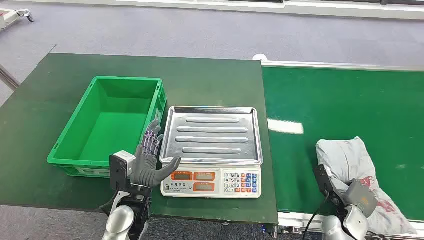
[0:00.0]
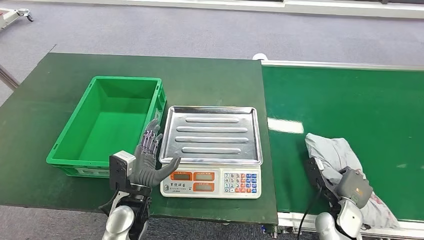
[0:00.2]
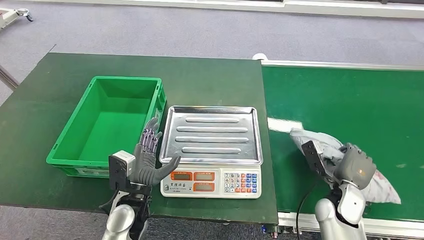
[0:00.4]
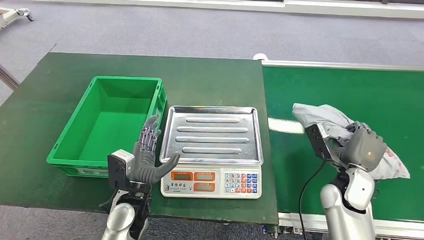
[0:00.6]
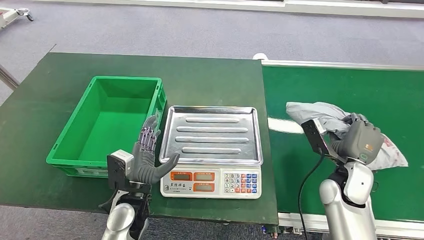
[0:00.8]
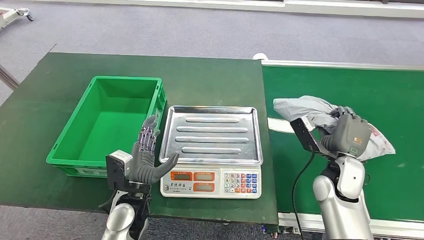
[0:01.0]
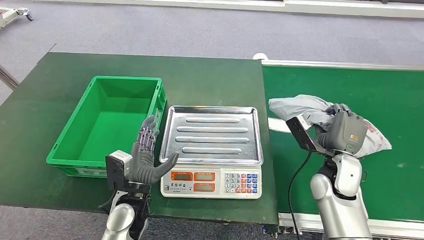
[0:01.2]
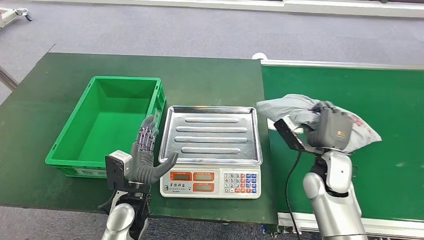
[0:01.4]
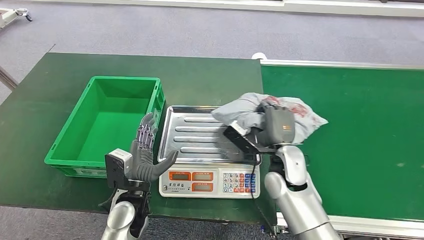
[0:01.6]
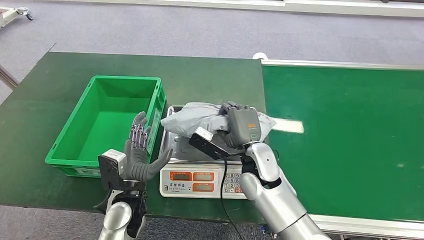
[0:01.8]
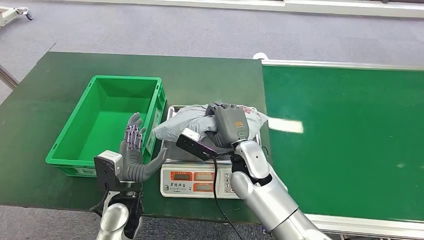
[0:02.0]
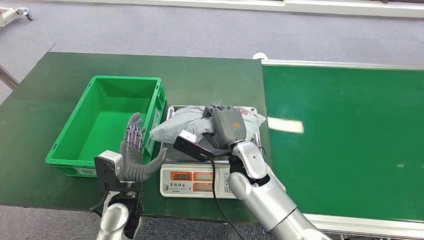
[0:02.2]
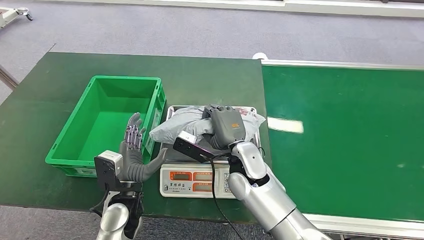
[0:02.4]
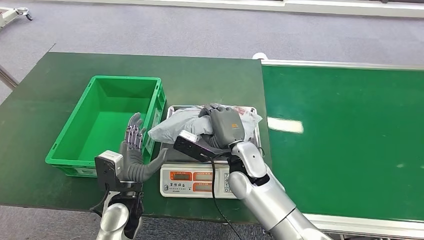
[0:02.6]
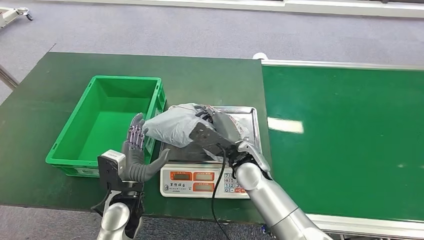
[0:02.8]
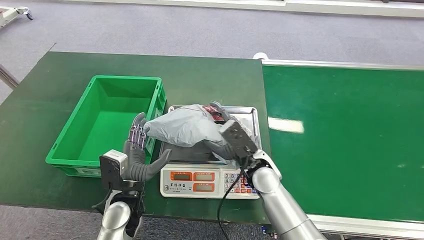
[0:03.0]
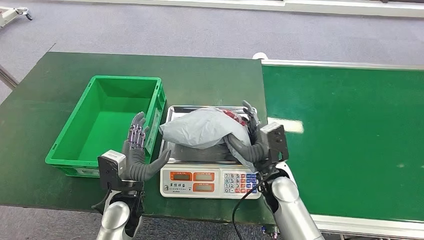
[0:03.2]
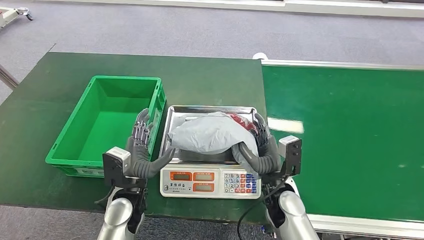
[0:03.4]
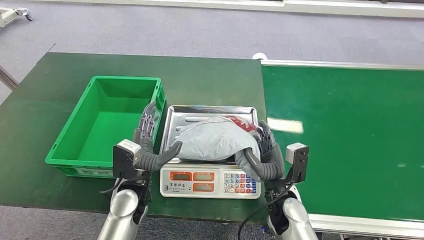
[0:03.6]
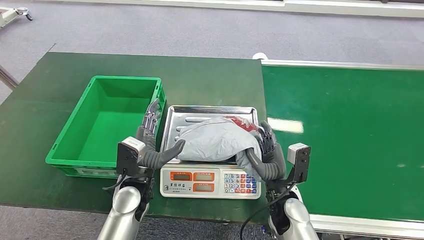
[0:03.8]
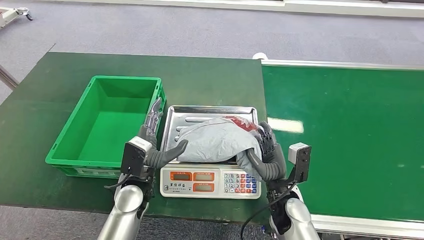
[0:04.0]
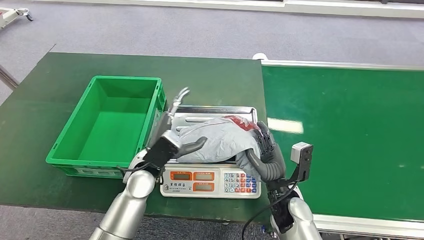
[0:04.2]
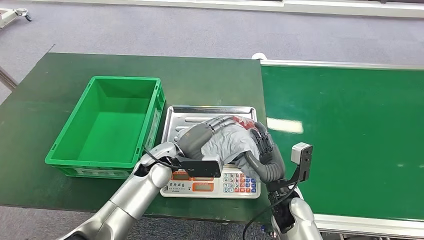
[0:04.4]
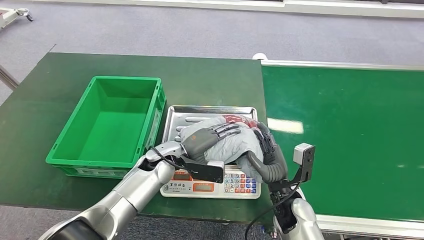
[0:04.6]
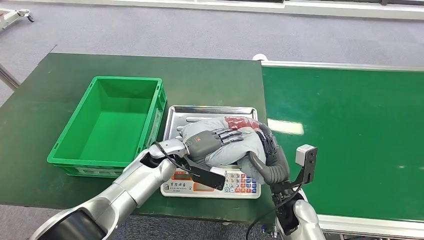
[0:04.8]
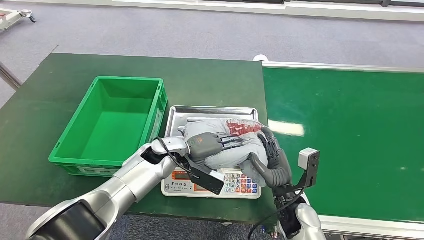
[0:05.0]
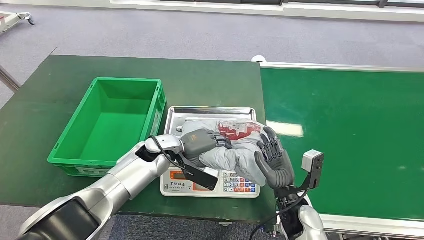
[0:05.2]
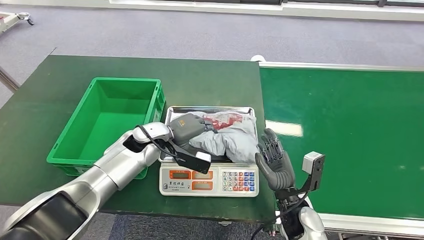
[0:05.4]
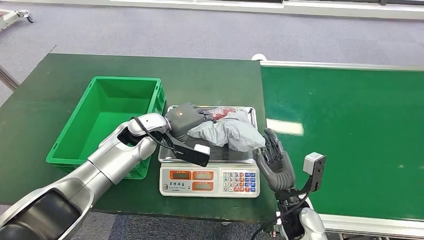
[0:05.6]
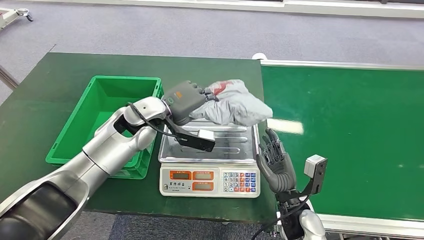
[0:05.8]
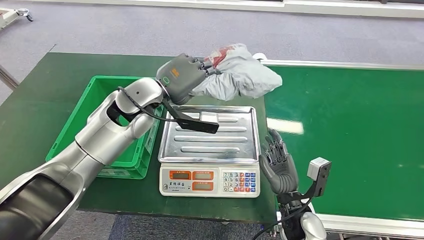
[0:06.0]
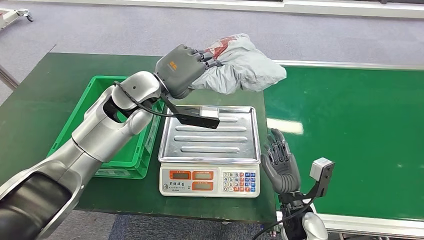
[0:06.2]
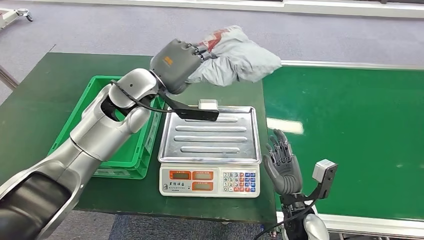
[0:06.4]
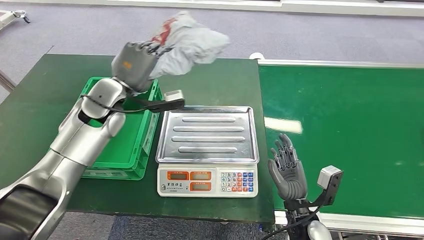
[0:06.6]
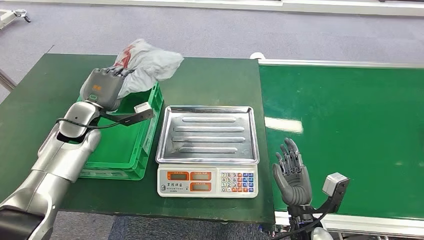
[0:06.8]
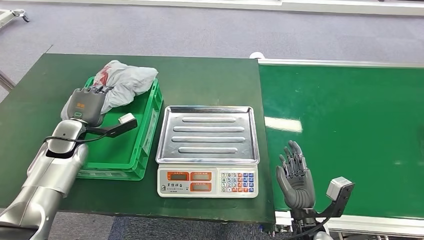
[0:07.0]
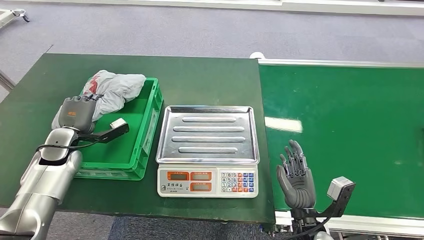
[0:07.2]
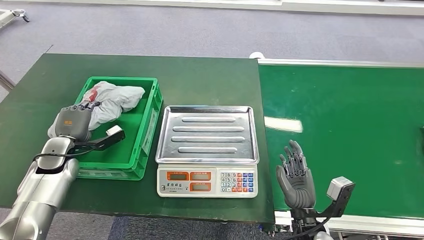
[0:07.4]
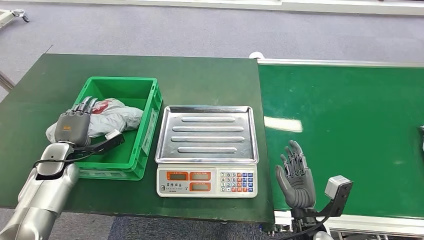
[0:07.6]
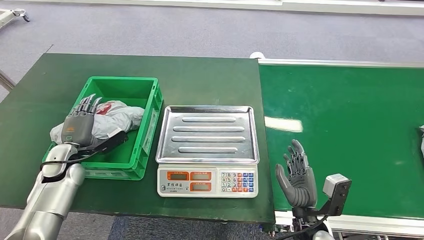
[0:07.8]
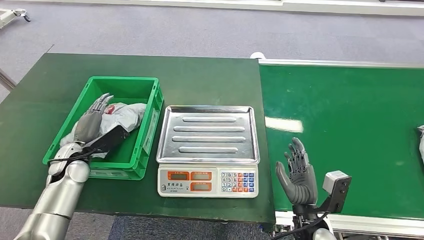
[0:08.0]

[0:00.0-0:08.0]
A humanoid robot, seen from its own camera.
Step, 0:00.0 to 0:01.6: Pick up the package from the conveyor belt.
Step, 0:02.0 to 0:03.2: Place the package onto the inbound machine.
Step, 0:03.4 to 0:06.4: Pick up the package from the inbound machine.
Step, 0:06.6 to 0:08.0: Place the package into the parcel locker.
0:01.6 to 0:03.2: The right hand reaches roughly 10 cm to the left, then returns.

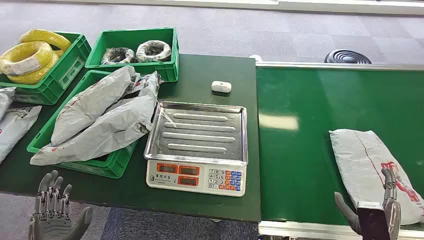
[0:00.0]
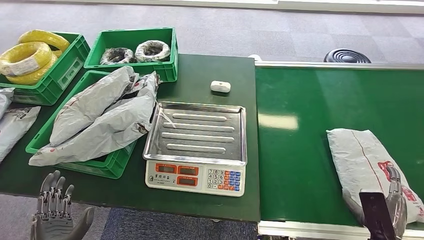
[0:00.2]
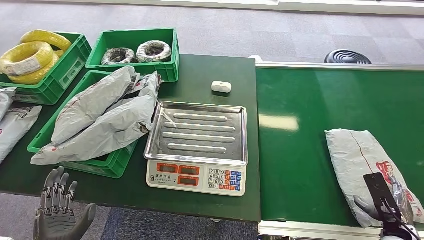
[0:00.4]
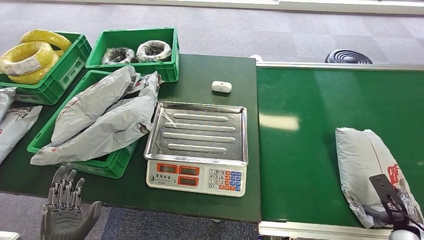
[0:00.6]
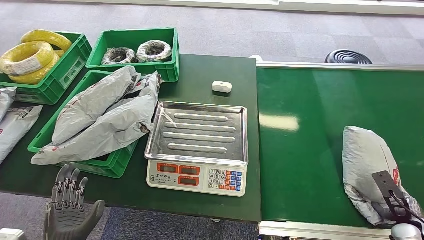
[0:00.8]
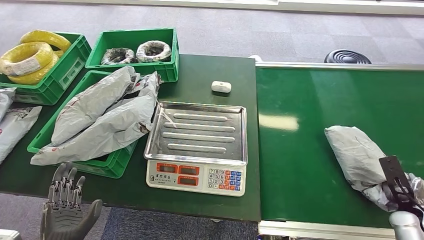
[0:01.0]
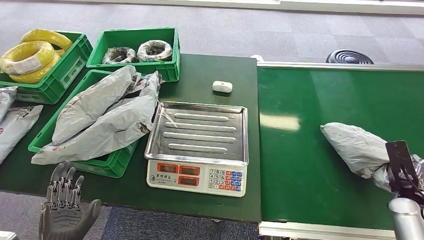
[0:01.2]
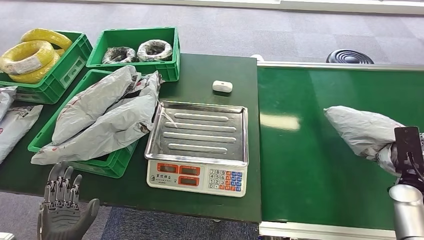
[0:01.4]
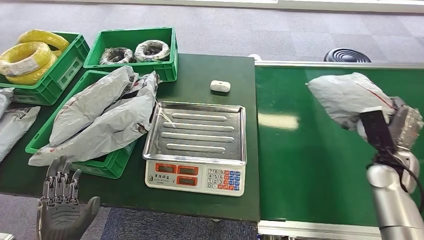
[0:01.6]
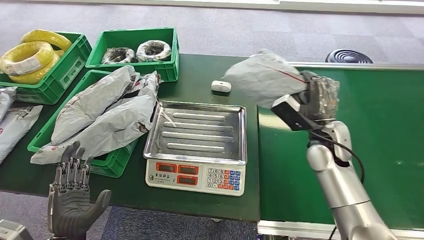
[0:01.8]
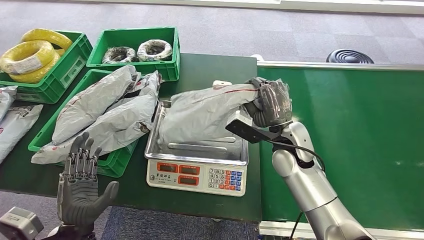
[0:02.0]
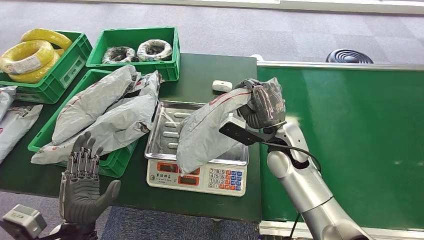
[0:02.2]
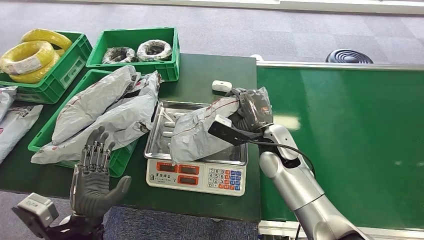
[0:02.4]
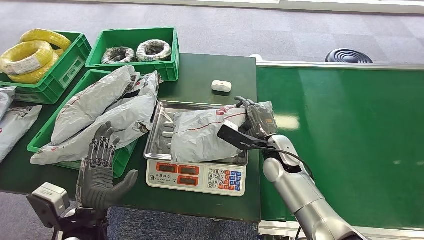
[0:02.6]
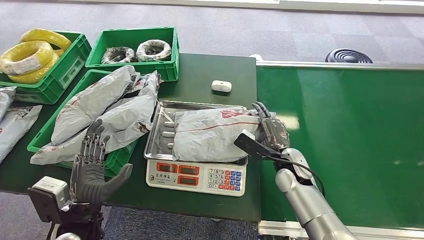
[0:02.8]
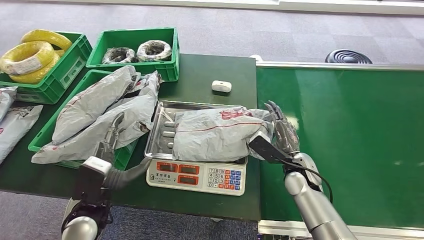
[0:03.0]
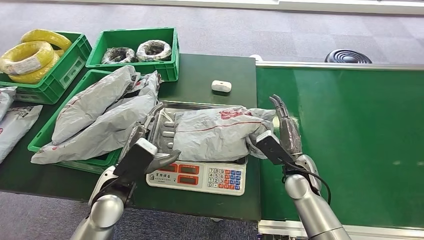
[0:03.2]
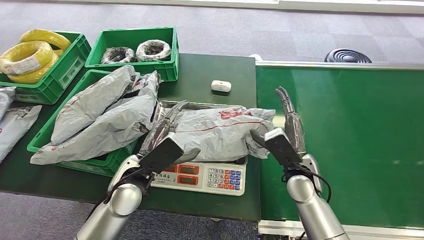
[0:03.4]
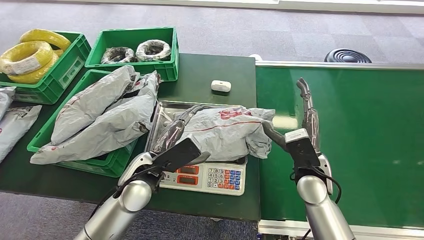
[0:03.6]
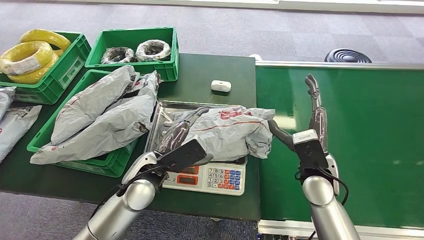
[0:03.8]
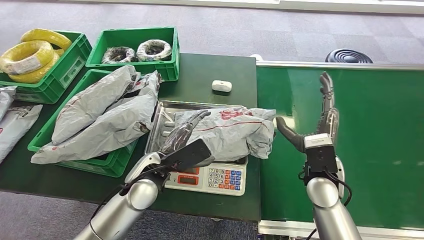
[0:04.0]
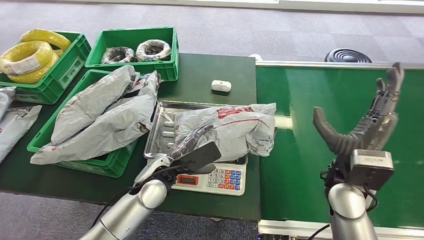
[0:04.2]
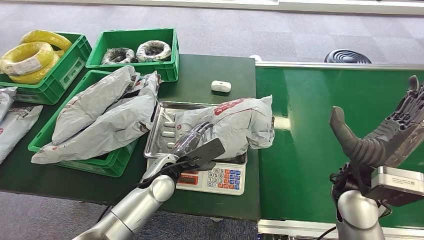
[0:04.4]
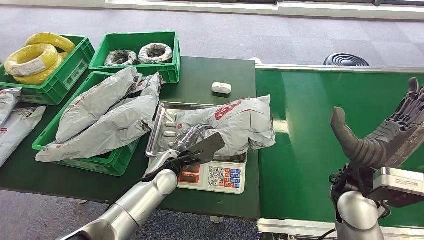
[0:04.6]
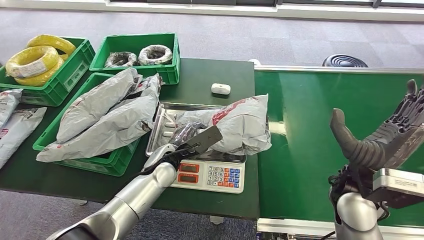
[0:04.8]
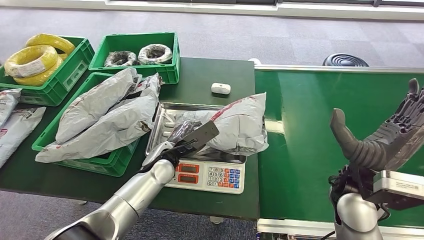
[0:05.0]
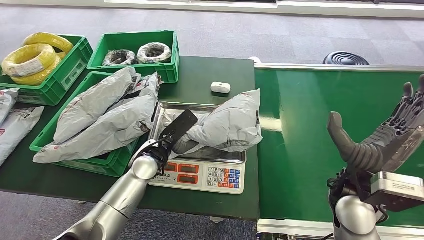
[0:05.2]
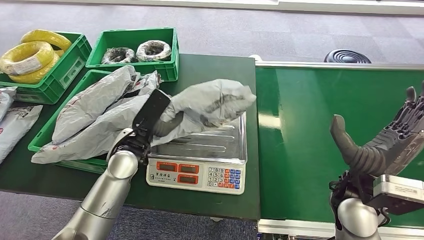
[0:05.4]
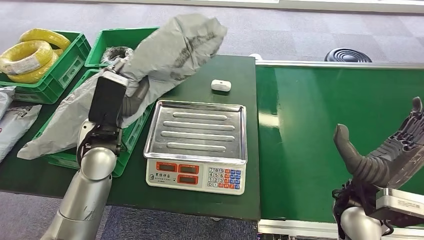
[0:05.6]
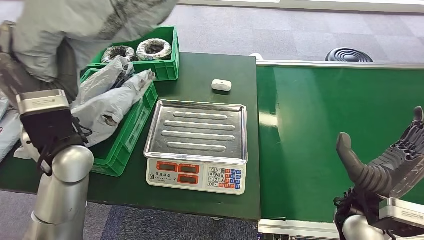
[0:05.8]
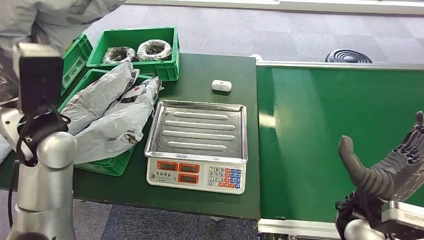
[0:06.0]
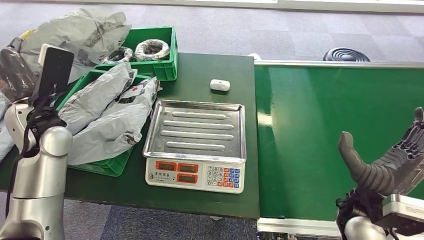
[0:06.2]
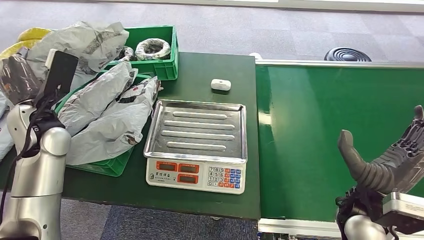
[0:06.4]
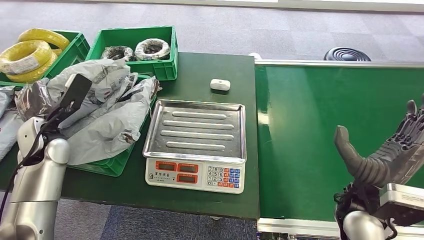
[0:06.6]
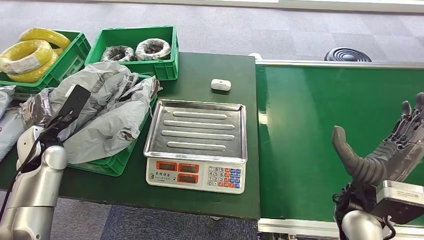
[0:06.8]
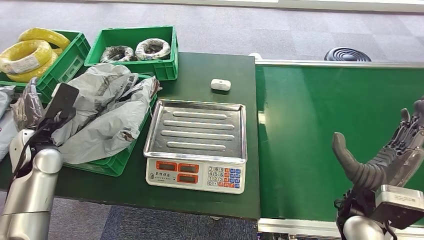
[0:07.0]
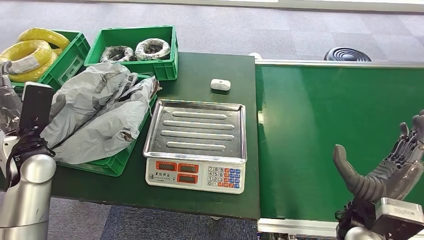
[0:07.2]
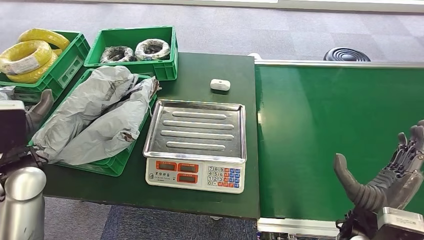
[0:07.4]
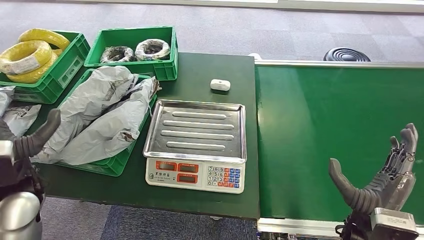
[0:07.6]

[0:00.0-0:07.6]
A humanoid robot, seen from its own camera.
Step, 0:00.0 to 0:01.4: Pick up the package from the conveyor belt.
Step, 0:01.8 to 0:03.4: Place the package onto the inbound machine.
Step, 0:03.6 to 0:05.8: Pick up the package from the inbound machine.
Step, 0:06.2 to 0:07.6: Place the package into the parcel locker.
